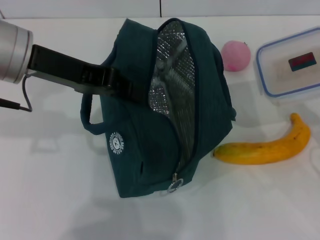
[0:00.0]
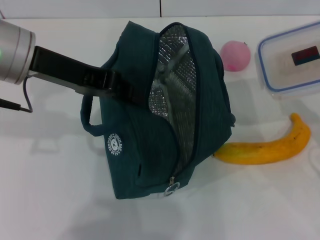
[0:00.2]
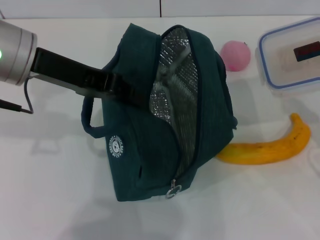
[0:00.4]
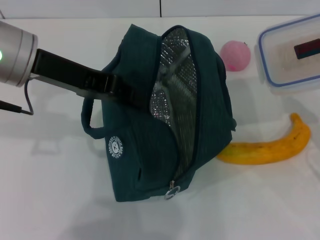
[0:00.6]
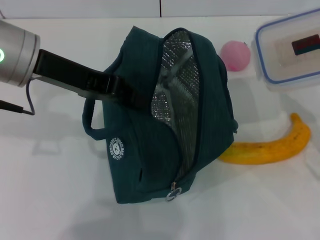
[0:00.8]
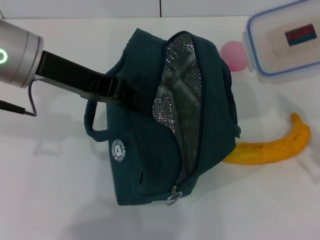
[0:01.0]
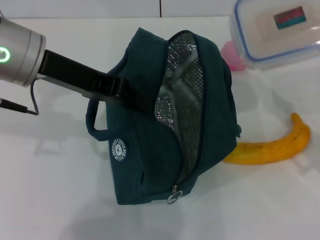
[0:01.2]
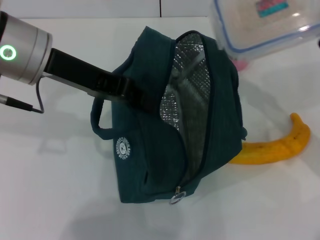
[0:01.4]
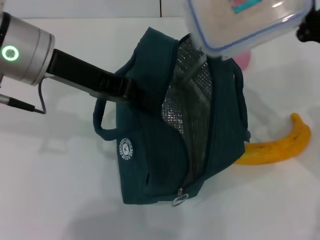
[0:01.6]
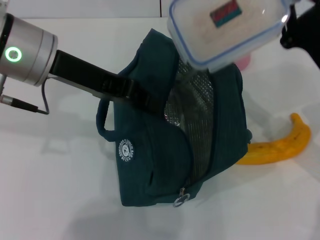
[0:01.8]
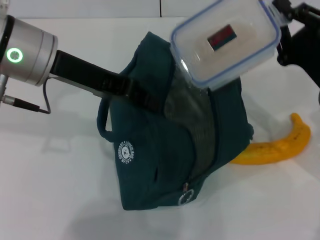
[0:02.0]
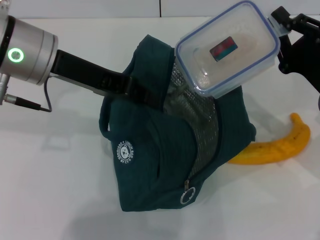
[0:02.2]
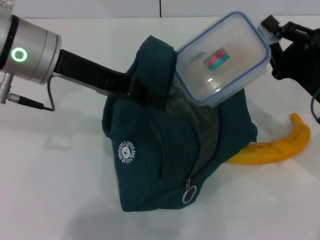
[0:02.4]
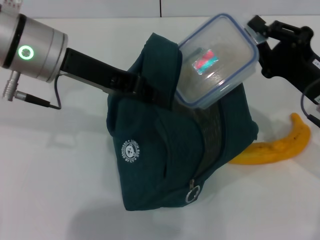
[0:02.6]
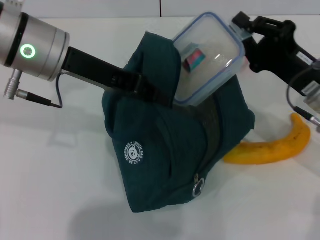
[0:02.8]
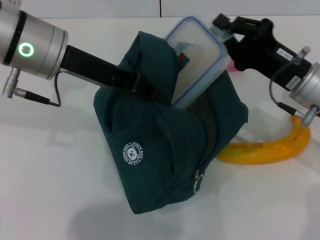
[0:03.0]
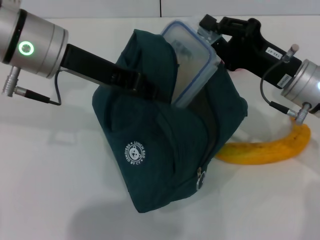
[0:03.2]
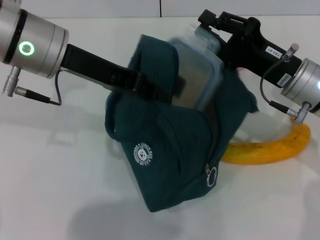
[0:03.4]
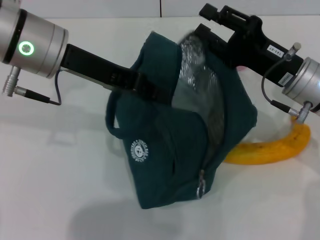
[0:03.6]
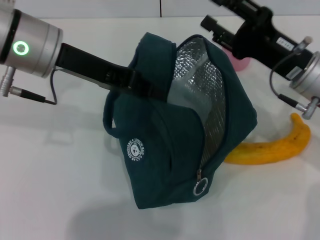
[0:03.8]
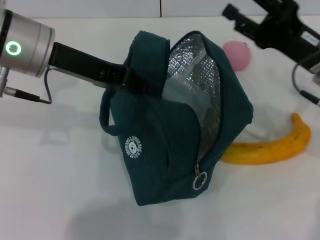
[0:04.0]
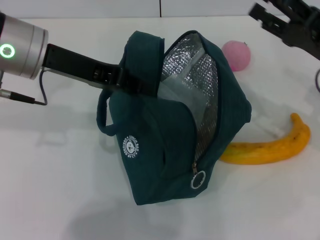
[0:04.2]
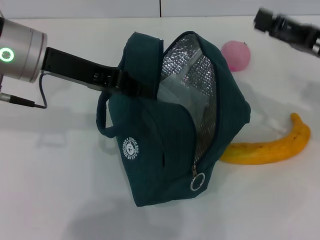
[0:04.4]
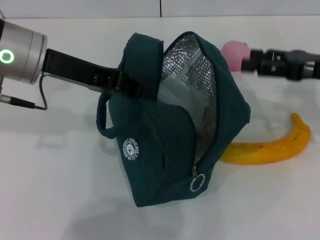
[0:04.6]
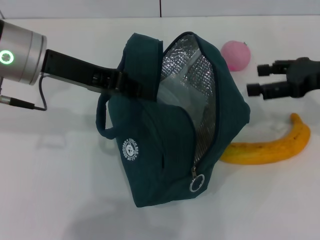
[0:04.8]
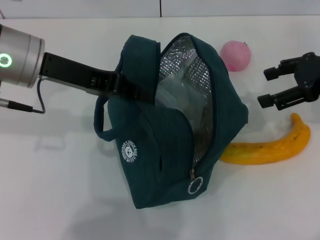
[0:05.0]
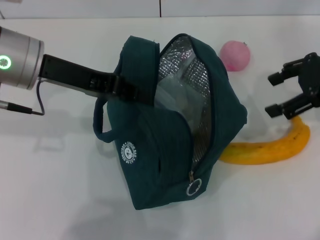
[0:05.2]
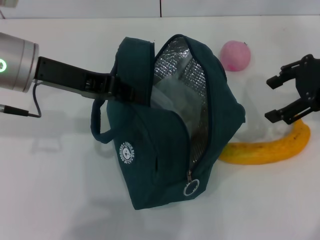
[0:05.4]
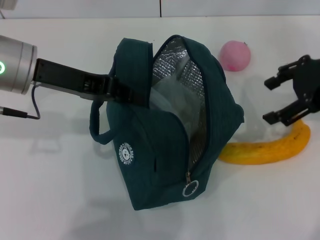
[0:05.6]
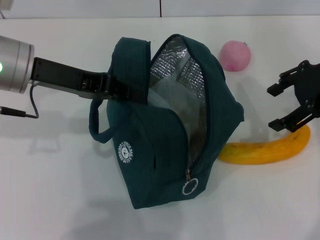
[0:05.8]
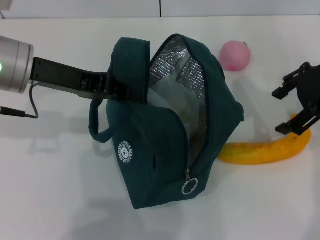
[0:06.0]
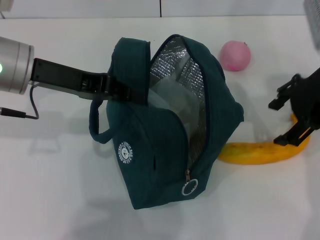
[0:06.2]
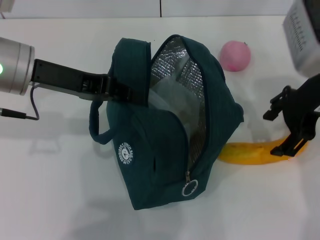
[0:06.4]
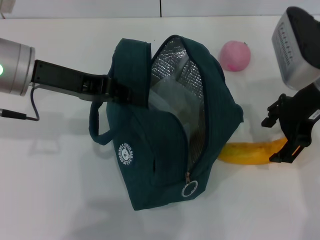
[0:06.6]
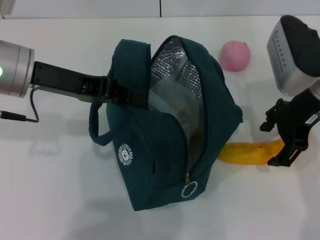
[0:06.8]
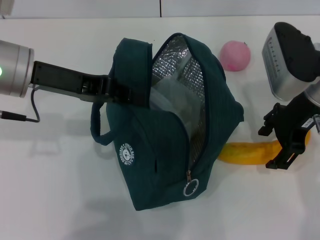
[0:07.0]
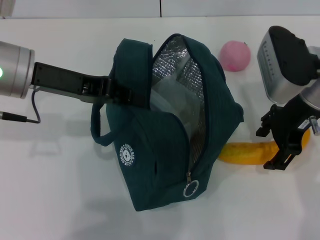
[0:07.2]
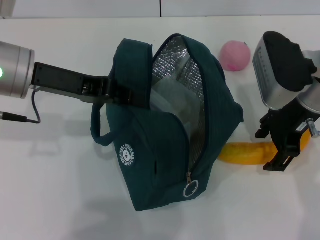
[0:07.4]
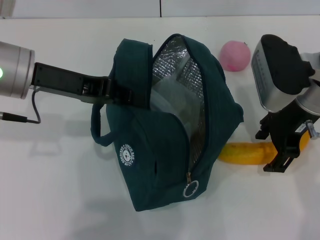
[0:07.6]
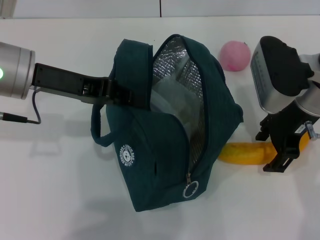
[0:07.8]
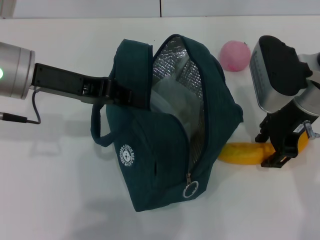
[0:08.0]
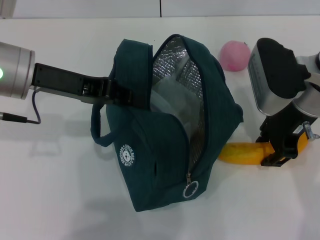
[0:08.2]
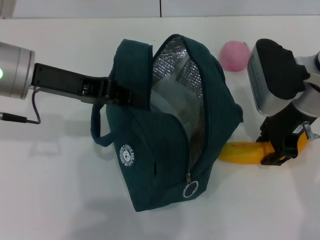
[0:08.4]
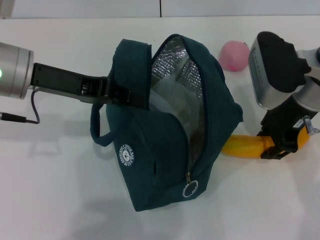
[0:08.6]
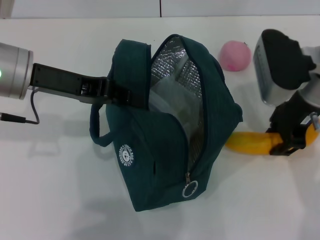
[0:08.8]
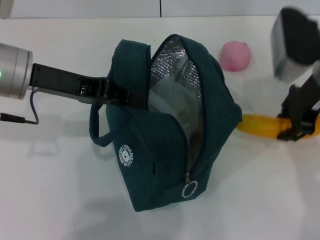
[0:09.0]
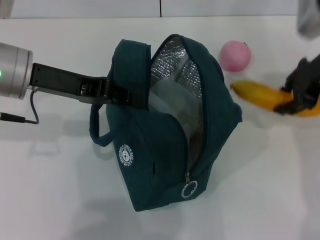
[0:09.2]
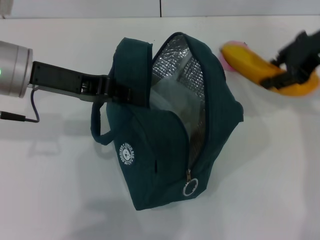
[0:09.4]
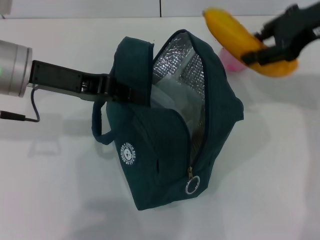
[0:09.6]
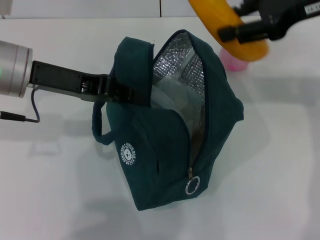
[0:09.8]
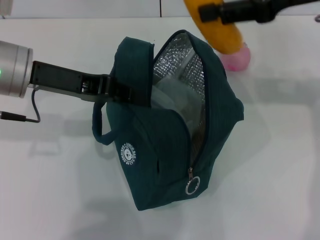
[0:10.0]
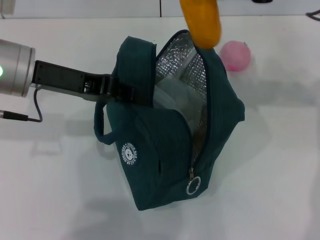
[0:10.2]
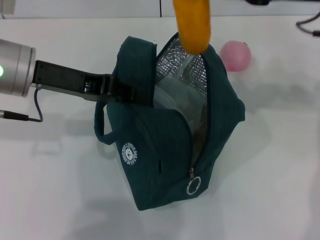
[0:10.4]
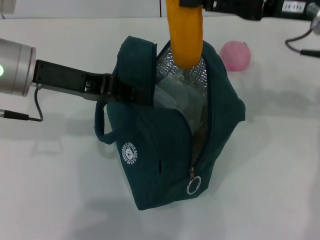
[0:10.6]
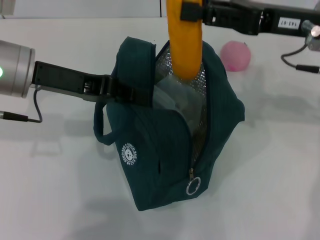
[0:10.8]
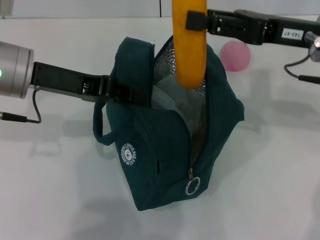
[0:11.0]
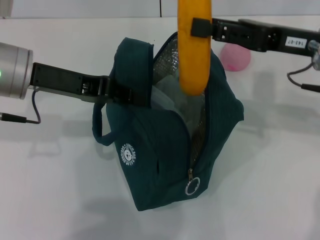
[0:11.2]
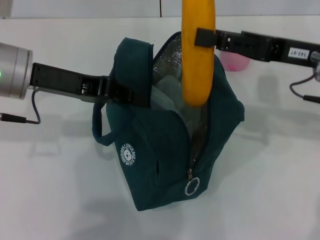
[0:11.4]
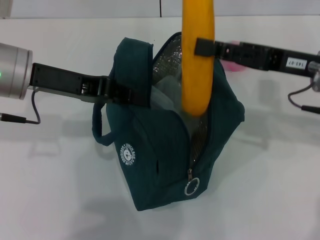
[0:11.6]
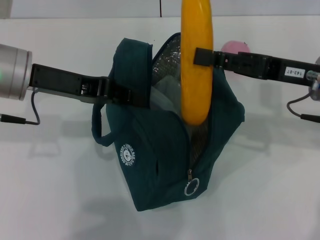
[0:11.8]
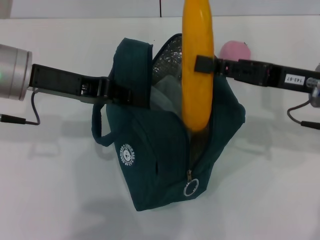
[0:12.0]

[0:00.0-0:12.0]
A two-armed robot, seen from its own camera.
Step, 0:00.0 to 0:03.8: Place the lunch box into the lunch bag with your right hand.
Step, 0:04.0 to 0:08.2: Take the banana with your right hand.
0:00.0 to 0:01.6: The right gripper heads to the left, forward and upward, covering approximately 10 cm.
0:01.6 to 0:03.0: The right gripper ends up approximately 5 cm from where it was.
0:03.0 to 0:04.4: The right gripper is displaced to the right by roughly 5 cm, and opens.
0:04.4 to 0:06.0: The right gripper heads upward, covering some 10 cm.
0:06.0 to 0:07.6: The right gripper shifts about 10 cm downward and to the left.
0:07.6 to 0:09.0: The right gripper closes up.
0:09.0 to 0:10.4: The right gripper travels upward by approximately 5 cm.
0:10.4 to 0:12.0: The right gripper goes roughly 10 cm downward.

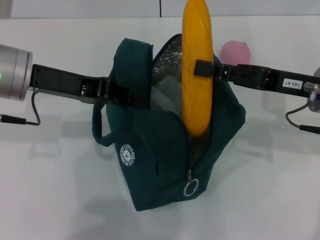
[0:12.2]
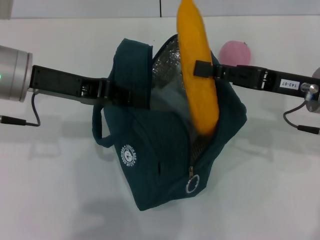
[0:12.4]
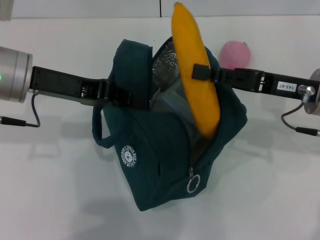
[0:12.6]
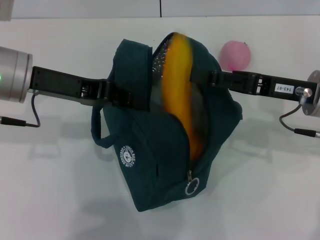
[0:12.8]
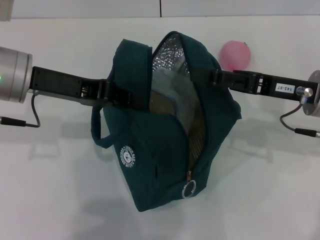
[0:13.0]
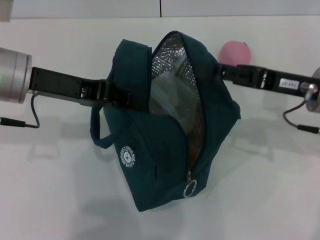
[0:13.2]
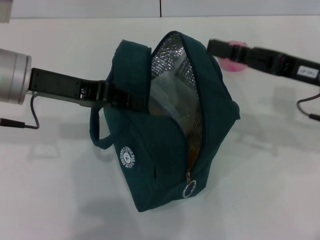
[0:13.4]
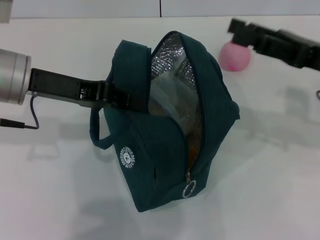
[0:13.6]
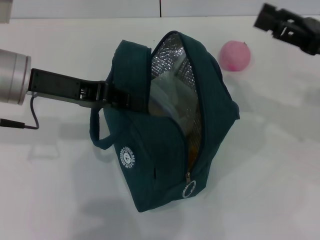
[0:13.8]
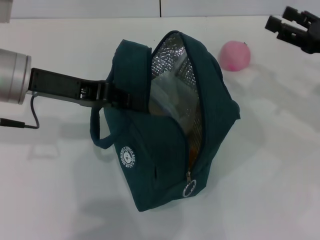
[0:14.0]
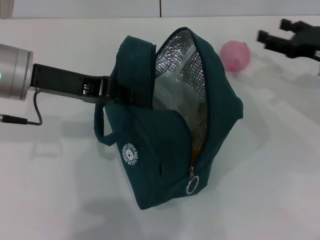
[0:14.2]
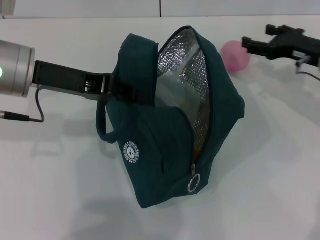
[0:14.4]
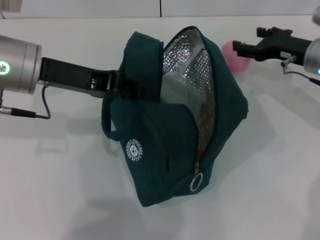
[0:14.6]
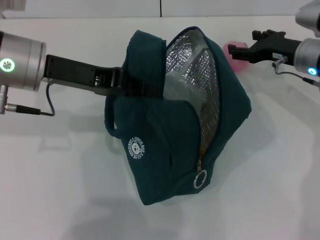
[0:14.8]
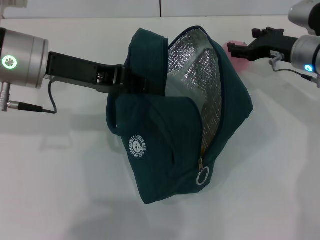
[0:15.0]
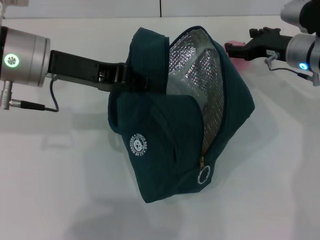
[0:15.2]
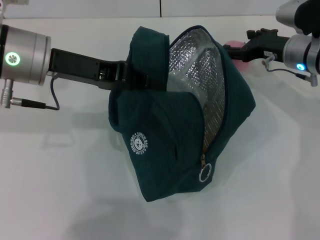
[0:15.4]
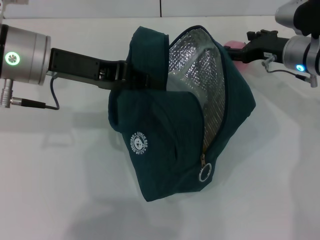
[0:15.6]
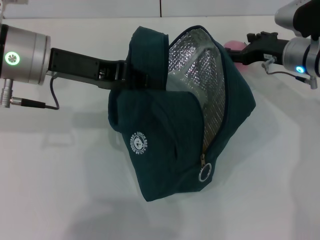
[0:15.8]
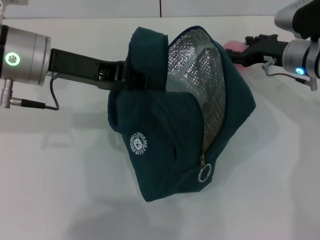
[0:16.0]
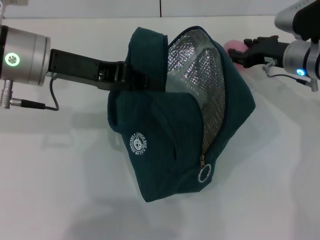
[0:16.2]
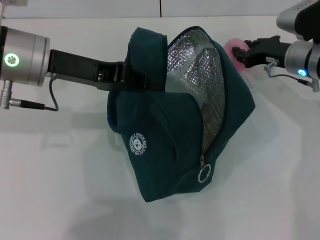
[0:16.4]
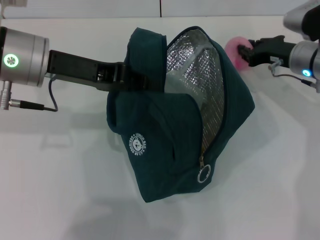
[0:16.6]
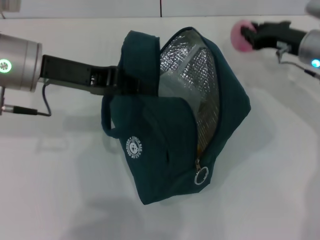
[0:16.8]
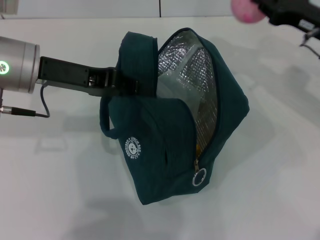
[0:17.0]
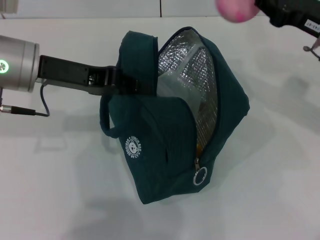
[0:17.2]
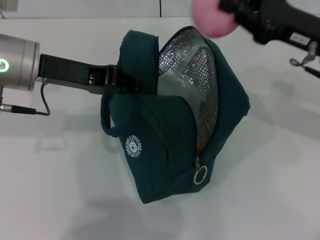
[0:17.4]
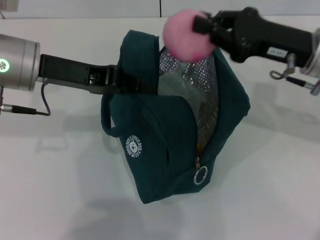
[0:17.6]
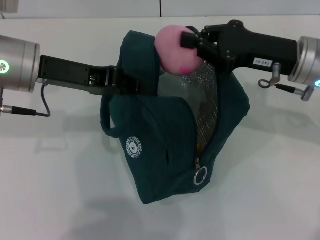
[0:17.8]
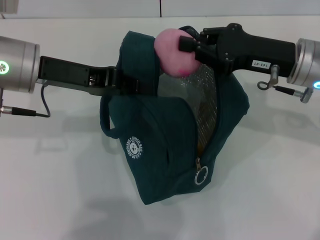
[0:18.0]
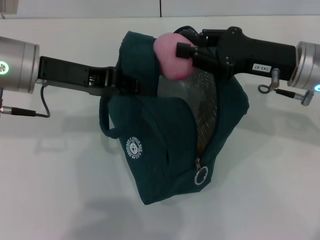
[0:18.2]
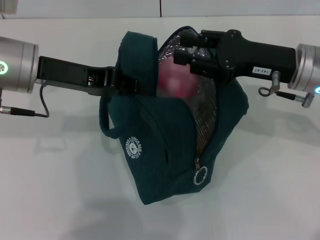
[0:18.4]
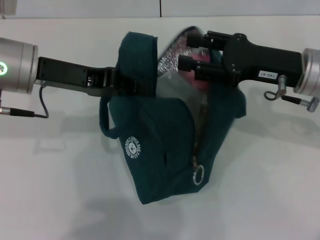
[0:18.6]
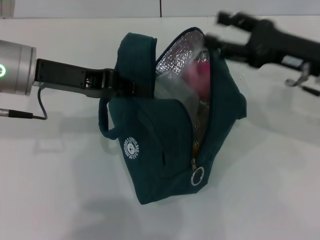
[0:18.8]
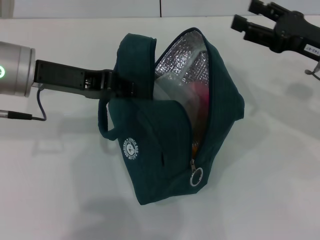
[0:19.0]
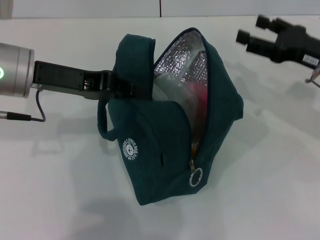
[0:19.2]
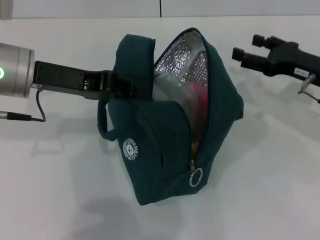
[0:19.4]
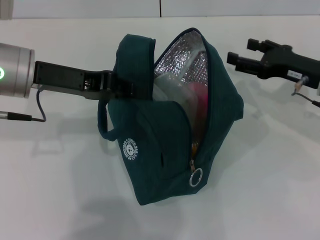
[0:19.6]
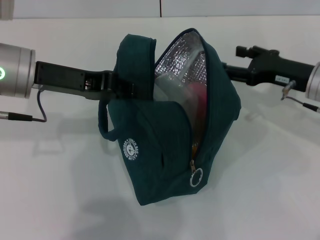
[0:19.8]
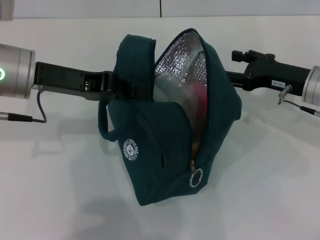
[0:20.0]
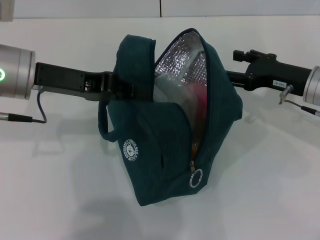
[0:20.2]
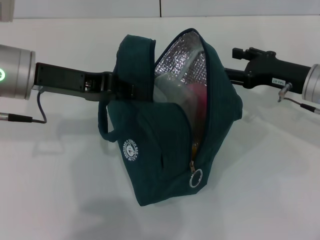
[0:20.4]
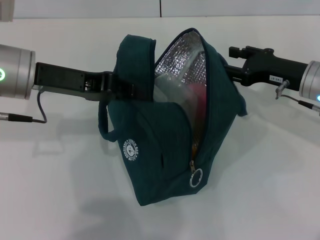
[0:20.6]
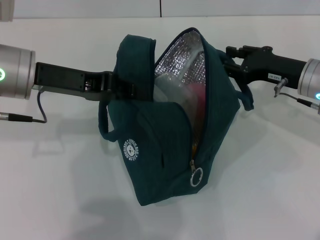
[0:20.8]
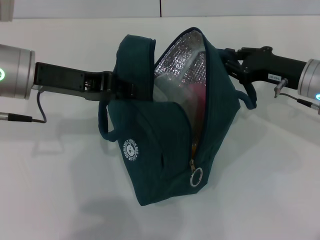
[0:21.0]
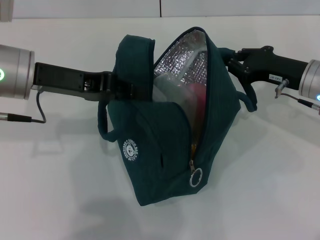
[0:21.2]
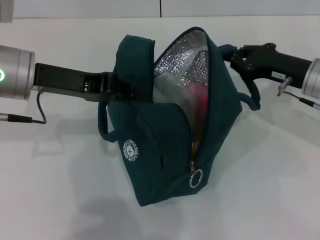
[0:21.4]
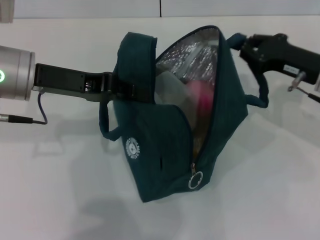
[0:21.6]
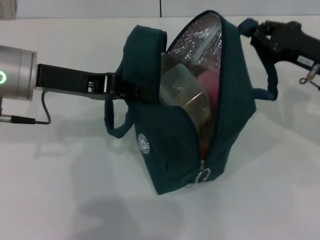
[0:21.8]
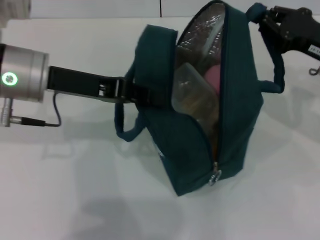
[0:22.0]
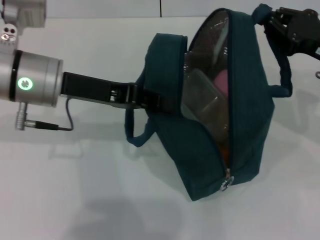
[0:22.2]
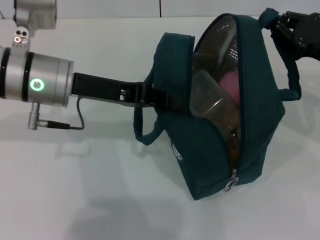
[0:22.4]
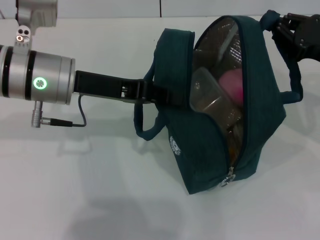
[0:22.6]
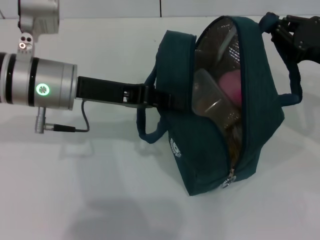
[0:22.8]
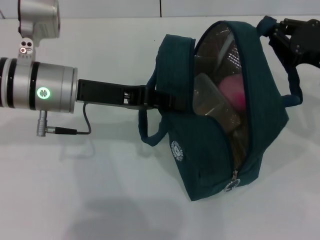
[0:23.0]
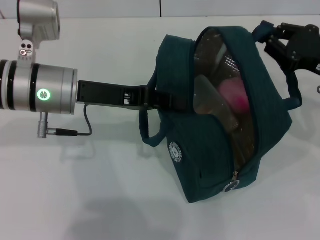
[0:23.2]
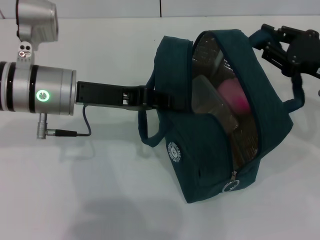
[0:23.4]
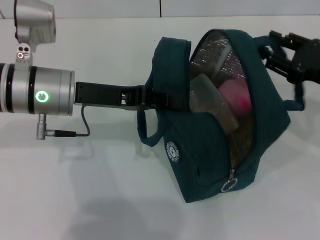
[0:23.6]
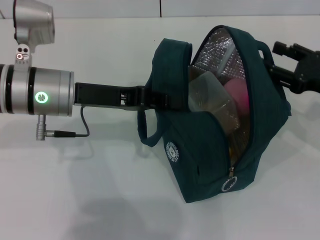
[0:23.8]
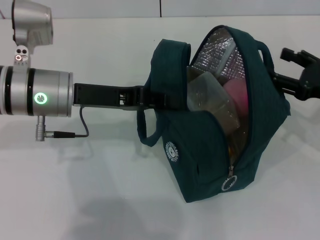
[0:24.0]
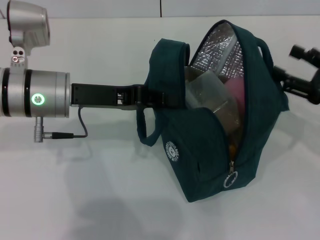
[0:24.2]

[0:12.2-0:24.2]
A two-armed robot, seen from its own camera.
Step, 0:13.4 to 0:16.2: Grab the peach with your right hand.
Step, 0:18.6 to 0:23.4: Hold the lunch bag with your right hand.
0:12.2 to 0:13.8: The right gripper travels to the right by about 5 cm, and opens up.
0:13.8 to 0:15.2: The right gripper goes some 15 cm forward, to the left and downward.
0:15.2 to 0:16.6: The right gripper closes up.
0:16.6 to 0:18.2: The right gripper goes roughly 10 cm backward and upward.
0:18.2 to 0:19.8: The right gripper heads downward, covering roughly 5 cm, and opens up.
0:19.8 to 0:21.2: The right gripper closes its fingers.
0:21.2 to 0:22.6: The right gripper ends up about 10 cm from where it was.
0:22.6 to 0:24.2: The right gripper ends up approximately 5 cm from where it was, and opens.
